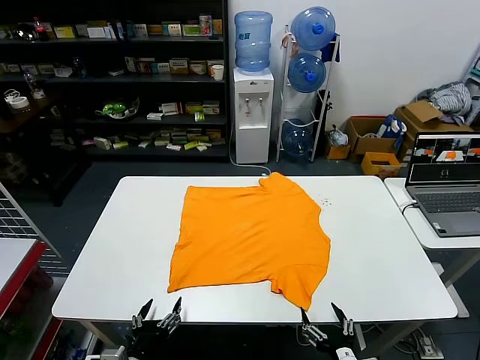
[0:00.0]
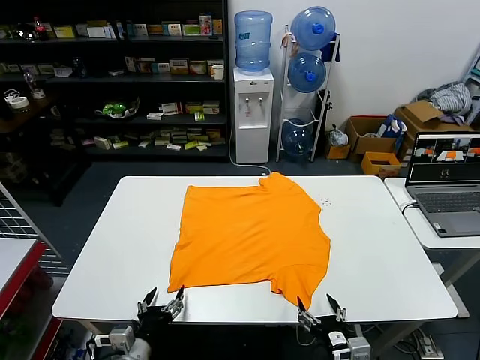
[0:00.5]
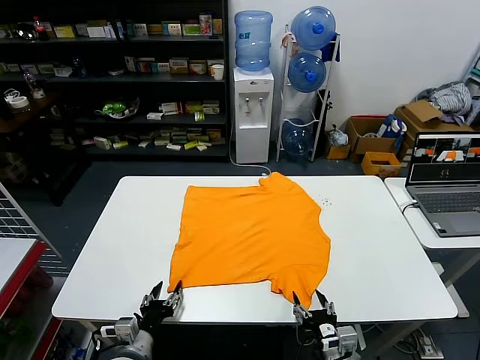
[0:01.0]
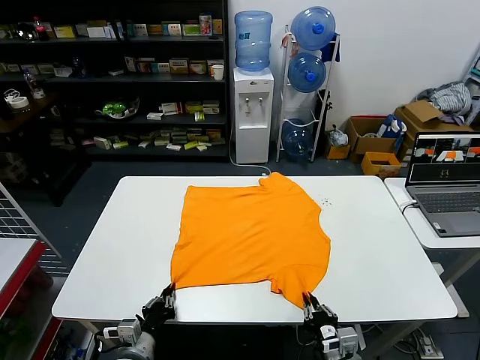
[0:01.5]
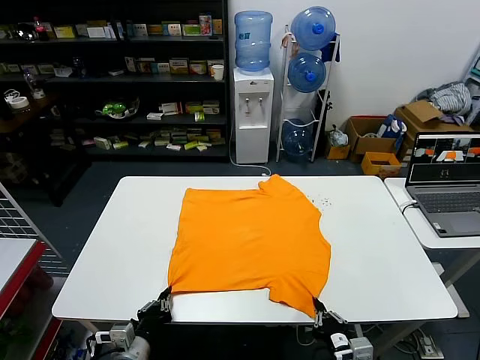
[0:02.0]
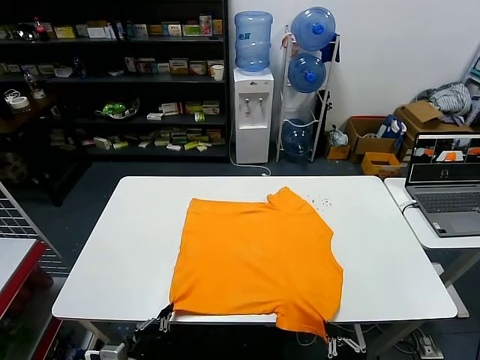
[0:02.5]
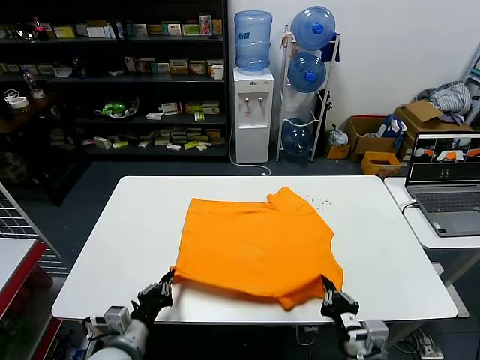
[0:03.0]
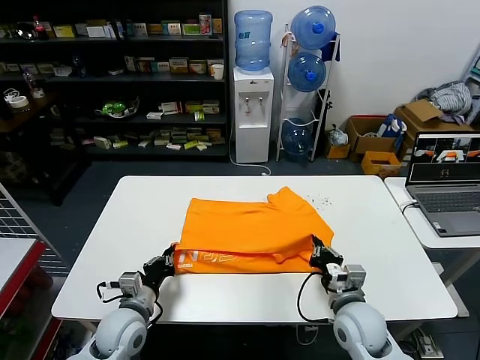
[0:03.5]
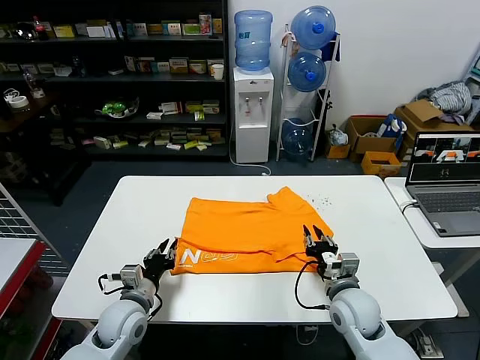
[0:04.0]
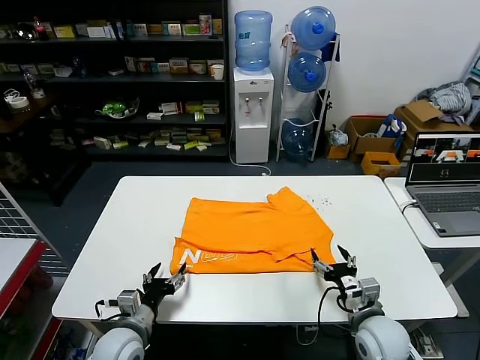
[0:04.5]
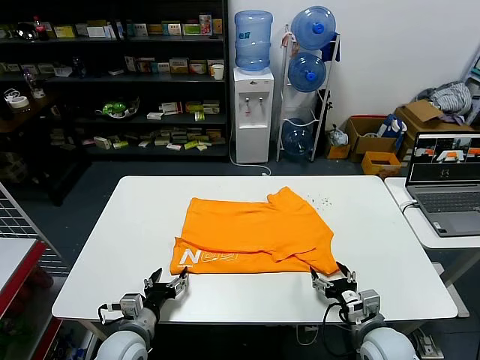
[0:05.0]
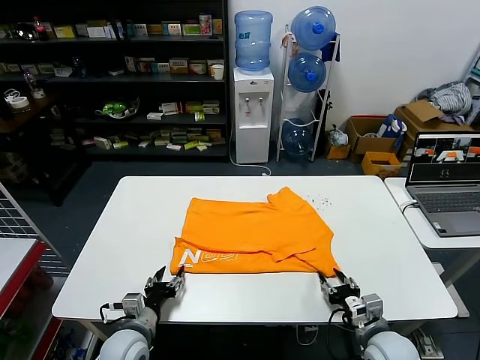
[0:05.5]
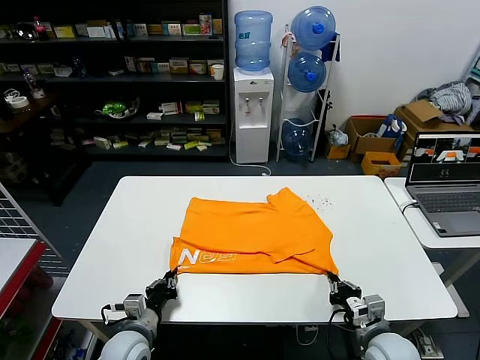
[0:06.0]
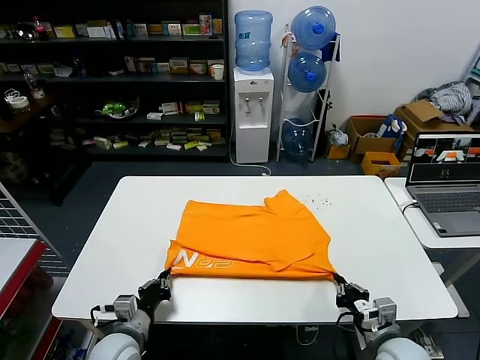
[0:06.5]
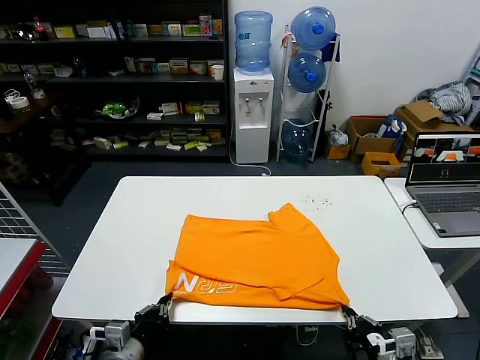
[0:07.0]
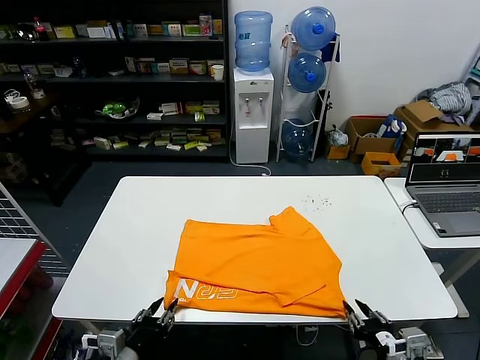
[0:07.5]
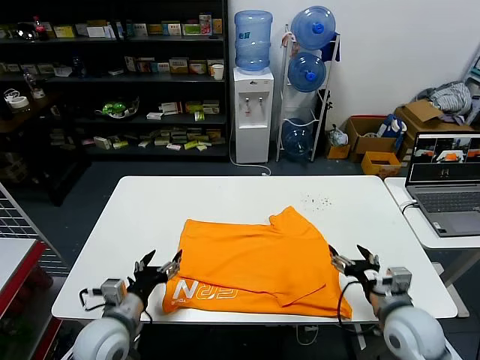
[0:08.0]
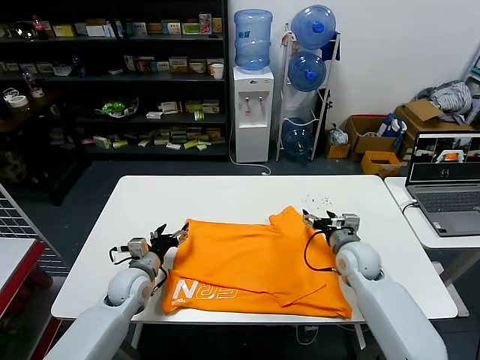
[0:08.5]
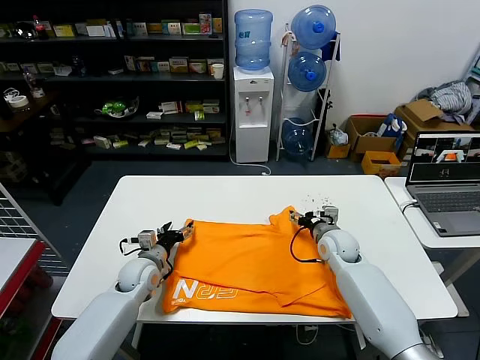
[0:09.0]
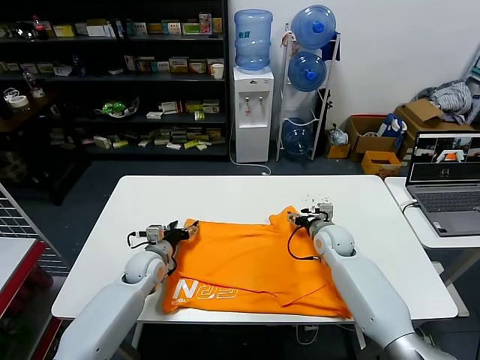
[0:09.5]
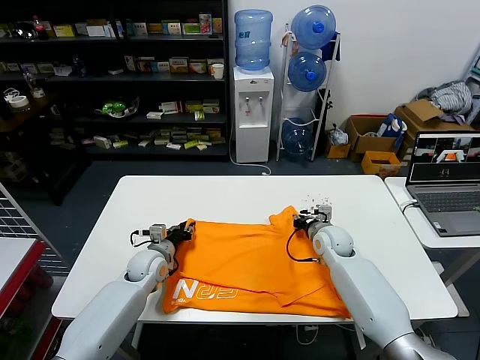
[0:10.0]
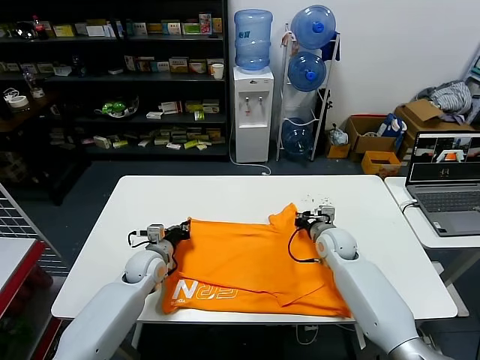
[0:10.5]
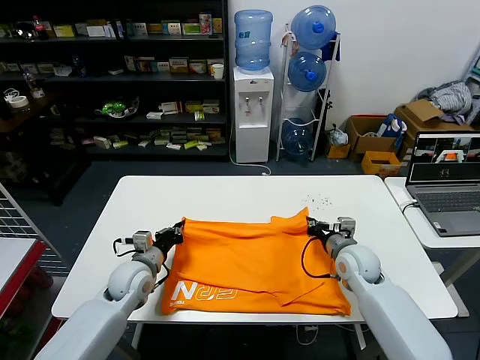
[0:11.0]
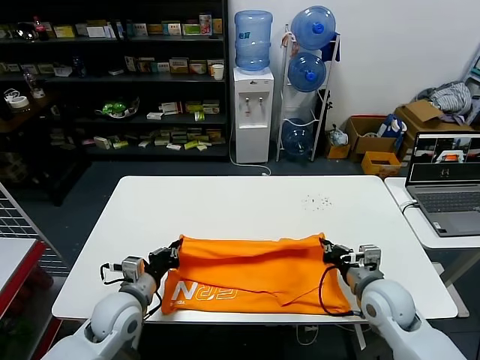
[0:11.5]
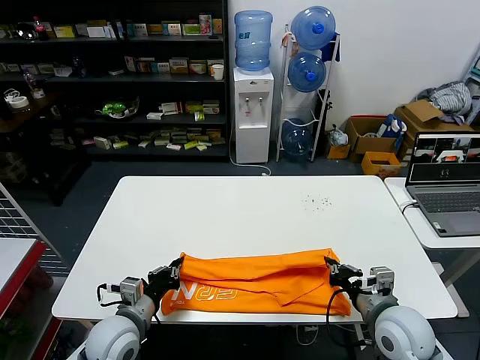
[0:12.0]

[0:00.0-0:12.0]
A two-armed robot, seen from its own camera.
Task of the whole recording: fold and organize the clothes.
Step, 0.0 to 1.5 s: use both grippers simultaneously to clamp the lower edge of the clothing fabric.
Step, 2.0 to 3.5 s: use both grippers to drag the lower edge of the fabric forward and fold it over the upper edge.
Step, 4.0 to 7.5 s: Drag the clothes downward with both gripper.
Step, 8.0 to 10.0 s: use both grippers simultaneously to clamp the upper edge of the clothing fabric.
2.0 to 4.0 s: Both grippers move forward, approximately 15 cm. The left gripper opens up. The right gripper opens.
4.0 to 6.0 s: The right gripper moves backward and to the right, approximately 10 cm, and closes, while the left gripper changes place by some 5 cm, and opens and closes again.
6.0 to 8.0 s: The grippers both shift upward by about 10 cm. The right gripper goes backward and returns, some 10 cm each way, and opens up, while the left gripper opens up.
8.0 to 10.0 s: Both grippers travel together forward, approximately 25 cm. The right gripper closes. The left gripper closes its fingers.
10.0 to 12.0 s: The two grippers go some 20 cm backward. The left gripper closes its fingers.

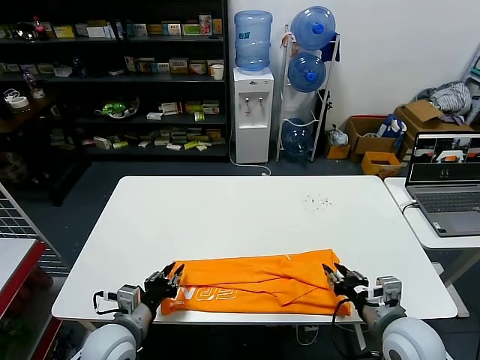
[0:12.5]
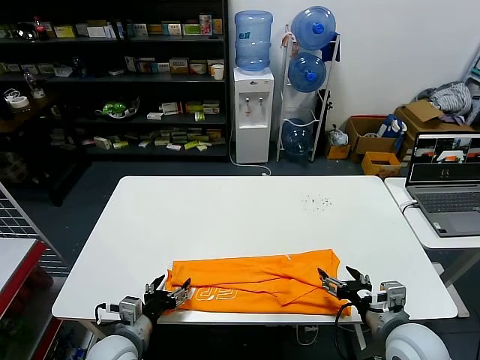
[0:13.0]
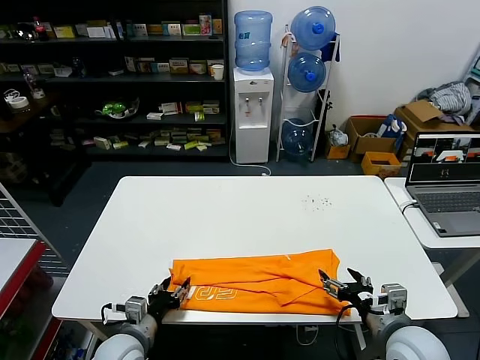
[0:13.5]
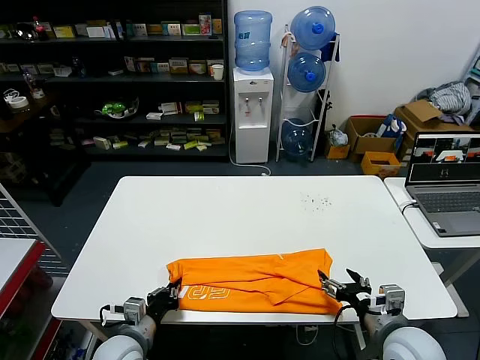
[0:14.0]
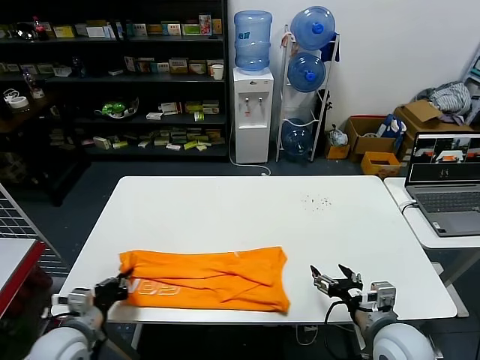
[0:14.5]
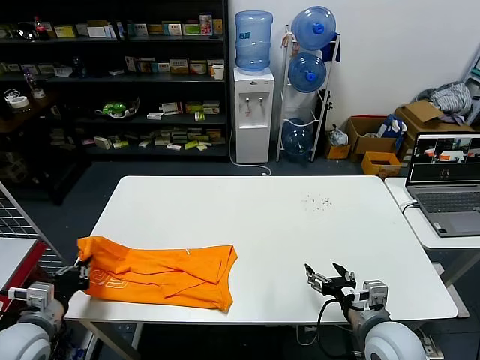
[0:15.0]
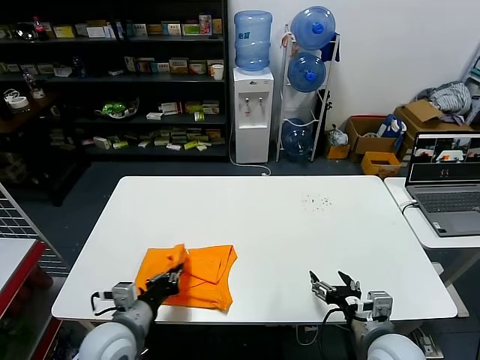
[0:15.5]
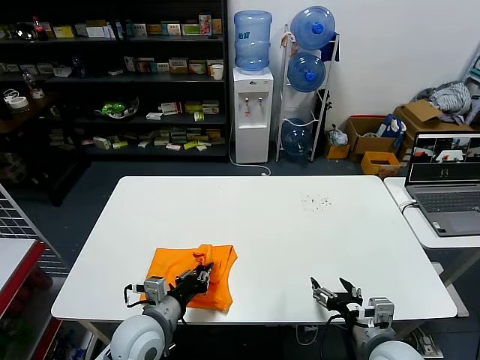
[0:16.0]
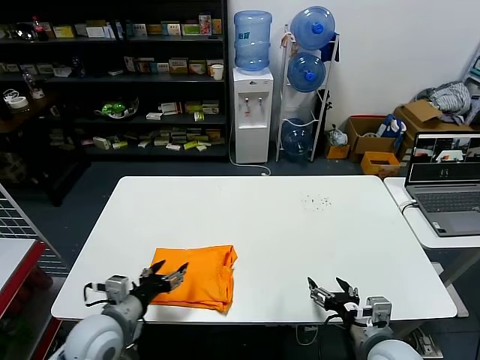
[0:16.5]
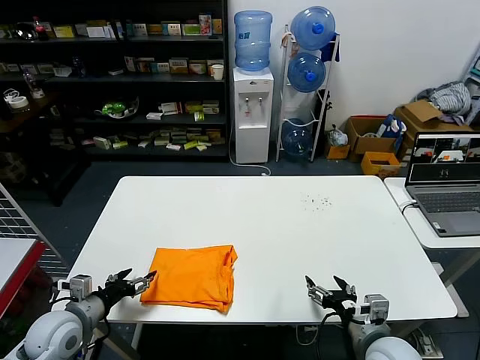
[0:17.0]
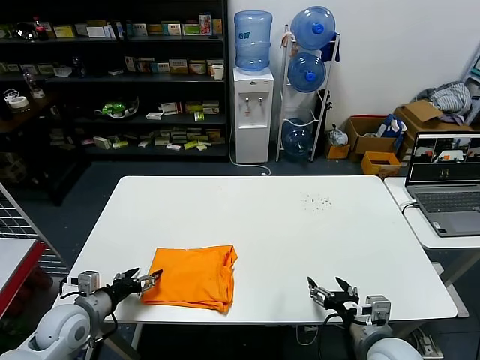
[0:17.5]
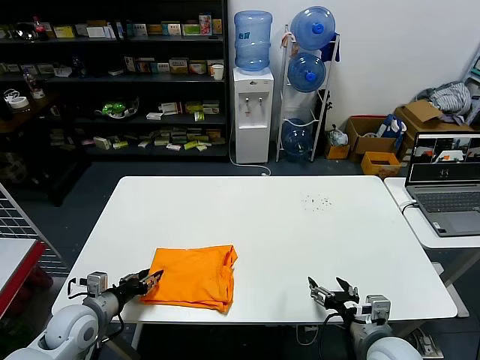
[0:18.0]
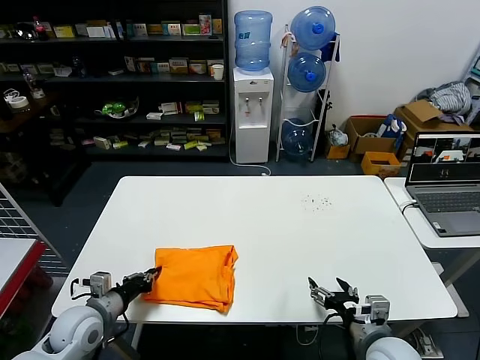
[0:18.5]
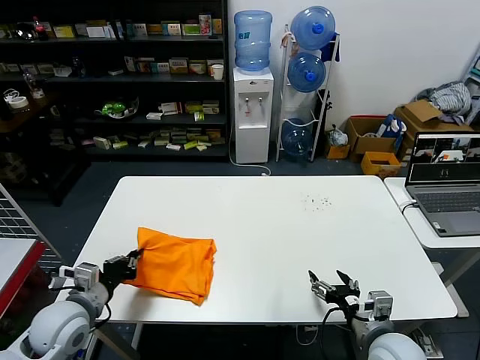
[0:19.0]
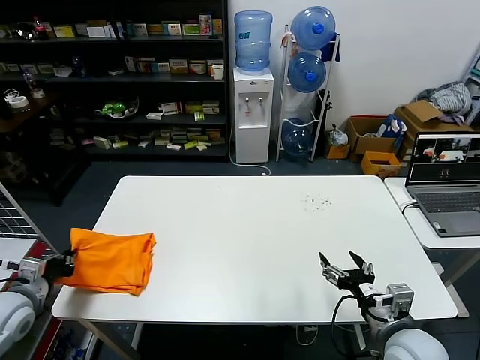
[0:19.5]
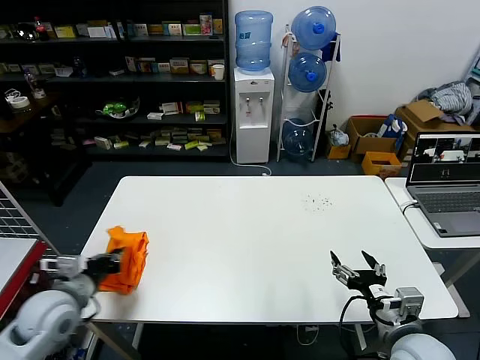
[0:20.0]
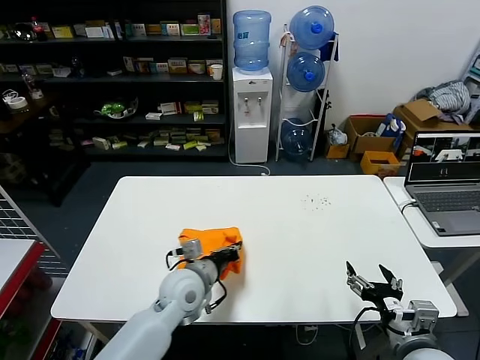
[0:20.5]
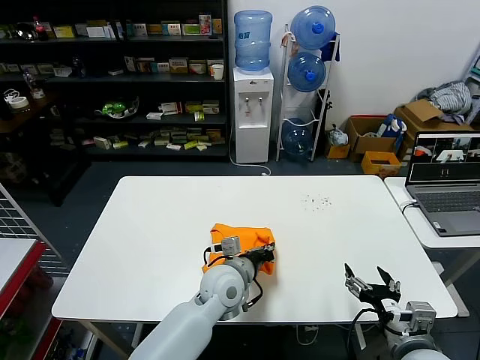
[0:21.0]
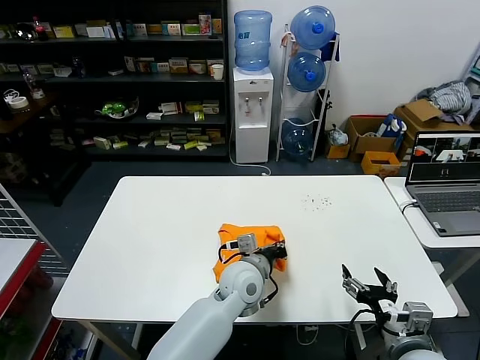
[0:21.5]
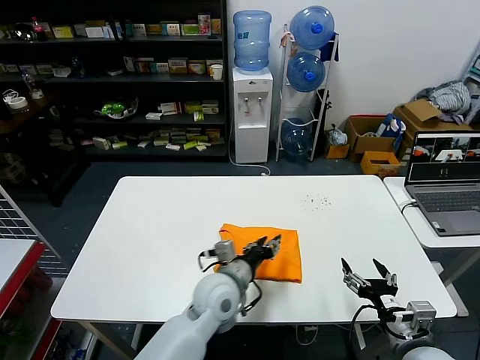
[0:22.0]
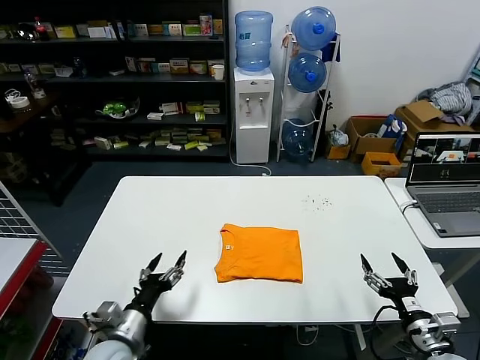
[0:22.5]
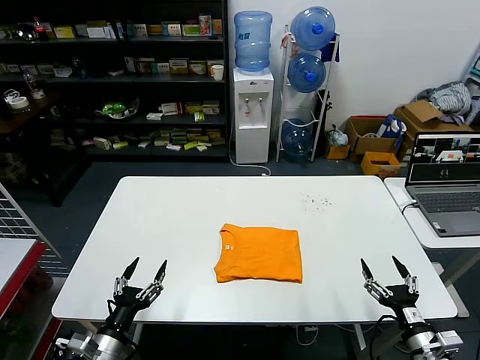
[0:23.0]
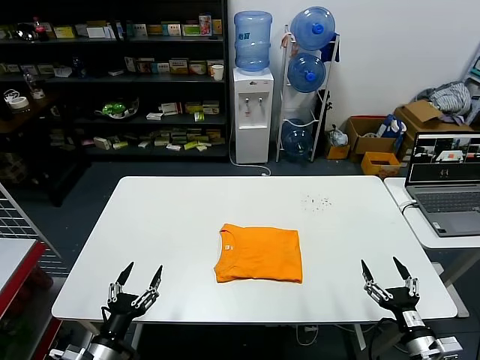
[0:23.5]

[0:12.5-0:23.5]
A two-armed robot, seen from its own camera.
Task of the whole recording: fold and organize the clothes.
Step, 12.5 to 13.5 s: use the left gripper to clamp the left edge of the fabric.
Step, 14.5 to 16.0 s: use the left gripper to drag the left edge of the fabric to the left and folds it over the right edge.
Step, 16.5 to 21.5 s: Flip the folded clothes over with left gripper.
12.5 to 14.5 s: The right gripper opens up; the left gripper goes about 5 cm to the left, and opens and closes again.
14.5 to 16.0 s: The left gripper shifts approximately 15 cm to the right.
16.0 to 18.0 s: The left gripper goes some 15 cm to the left, and opens.
18.0 to 20.0 s: The right gripper shifts by some 5 cm. Meanwhile the left gripper heads upward, covering some 10 cm, reaches approximately 10 cm to the left, then returns, and closes up.
20.0 to 21.5 s: The left gripper moves to the right, about 40 cm.
21.5 to 23.5 s: The right gripper moves downward and to the right, some 10 cm. Meanwhile the left gripper goes roughly 35 cm to the left and backward, and opens up.

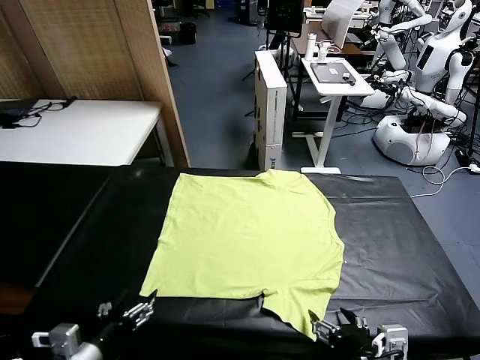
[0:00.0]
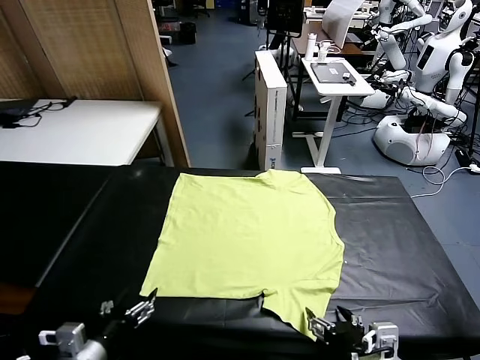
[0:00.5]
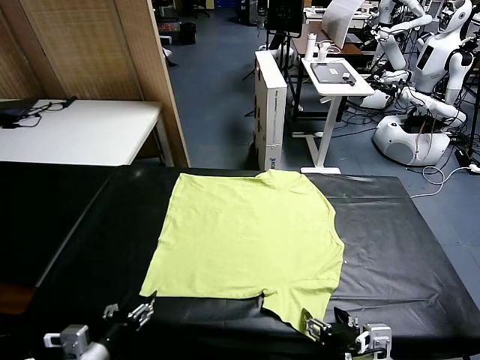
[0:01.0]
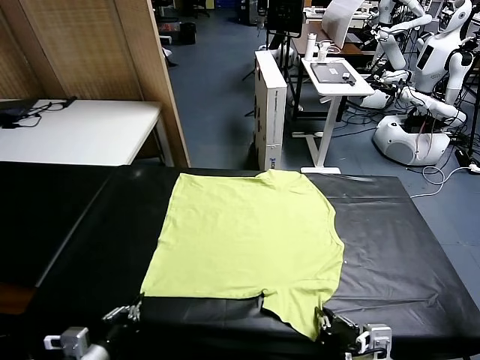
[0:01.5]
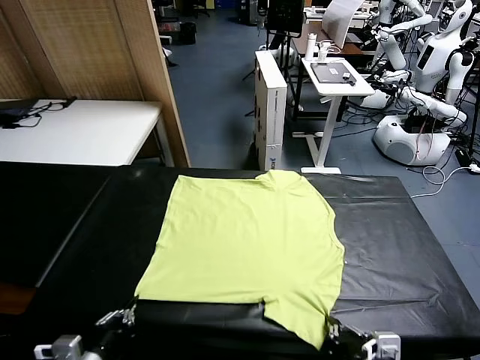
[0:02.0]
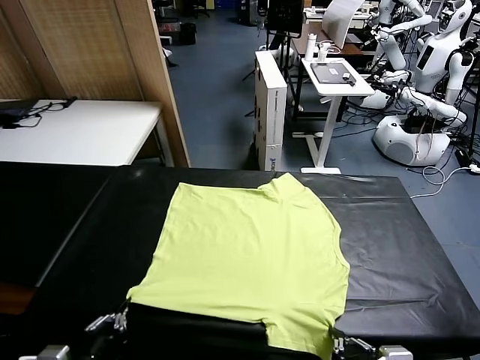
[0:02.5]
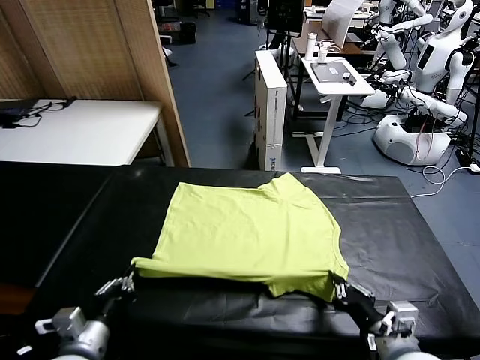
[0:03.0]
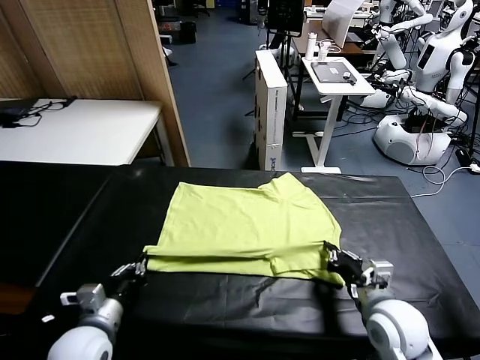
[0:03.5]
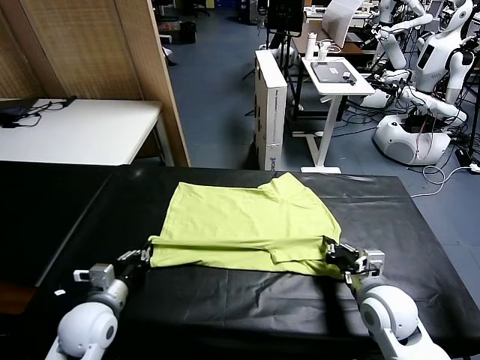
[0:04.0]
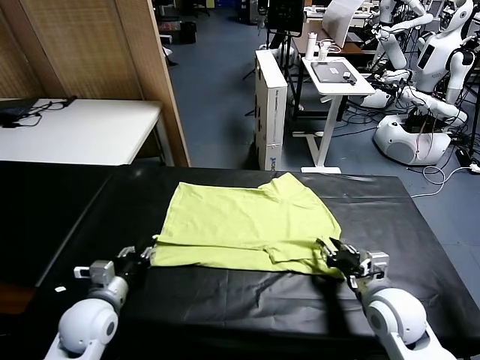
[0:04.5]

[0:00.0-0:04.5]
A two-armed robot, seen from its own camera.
Task of the whole recording: fold and organize the clothes.
Step, 0.0 to 1.5 s: use both grippers simultaneously to clamp the lower edge of the clothing fabric.
2.0 to 4.5 s: The left gripper shifts roughly 15 cm forward, and opens its fingers. The right gripper goes roughly 15 cm forward and to the right, and opens.
